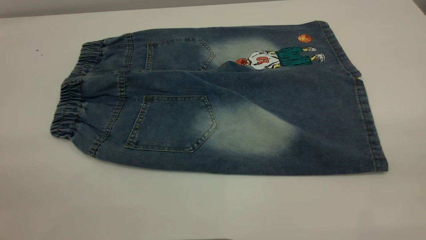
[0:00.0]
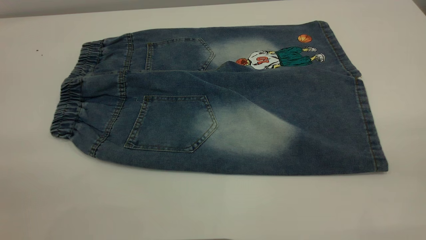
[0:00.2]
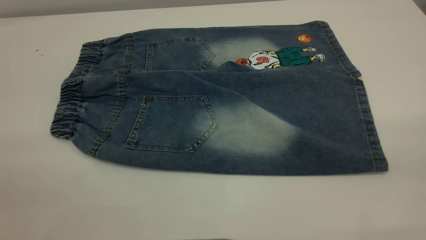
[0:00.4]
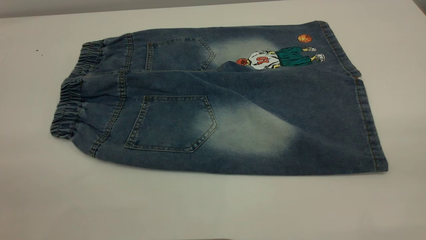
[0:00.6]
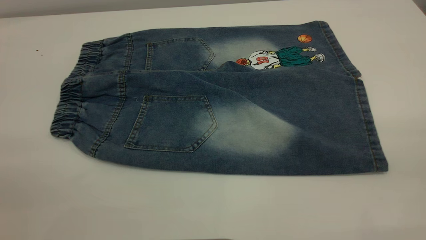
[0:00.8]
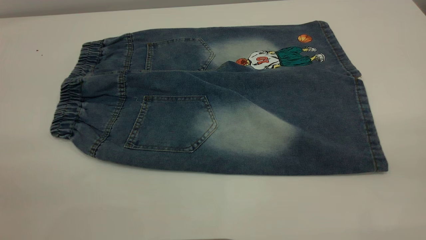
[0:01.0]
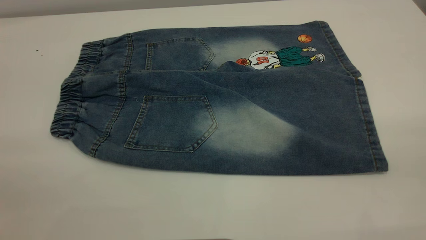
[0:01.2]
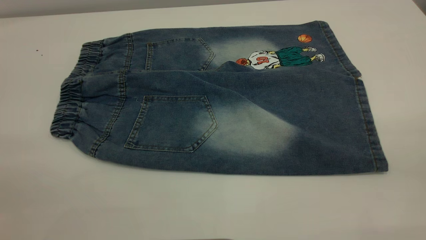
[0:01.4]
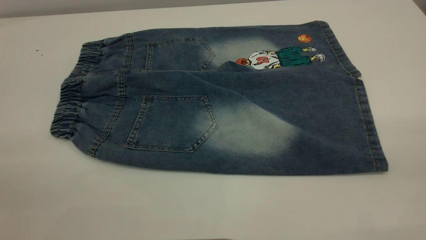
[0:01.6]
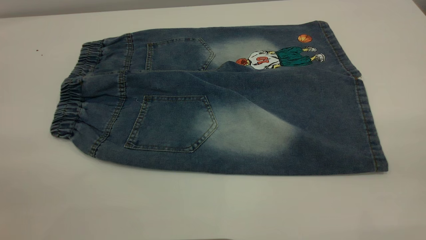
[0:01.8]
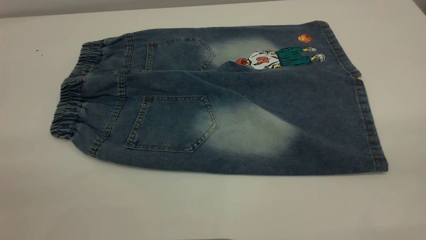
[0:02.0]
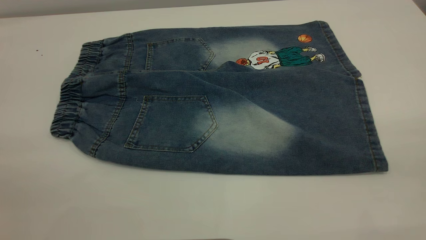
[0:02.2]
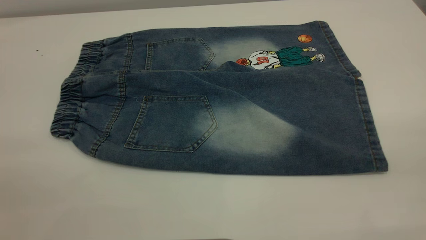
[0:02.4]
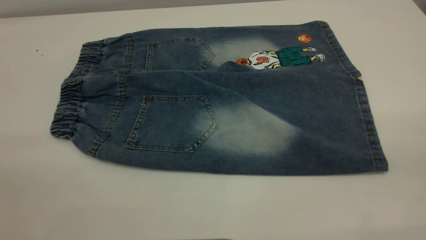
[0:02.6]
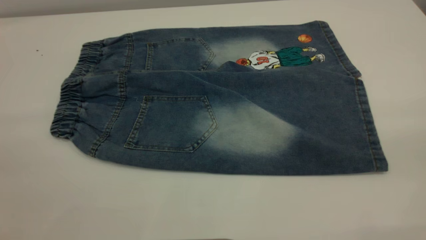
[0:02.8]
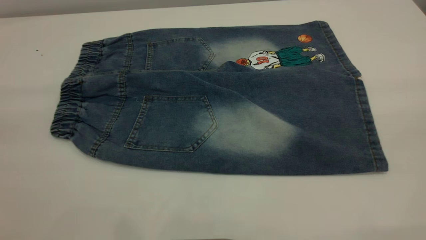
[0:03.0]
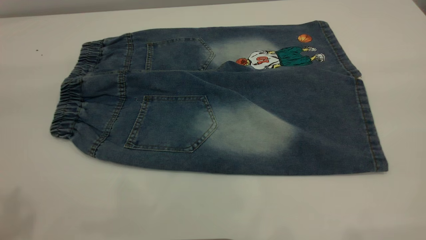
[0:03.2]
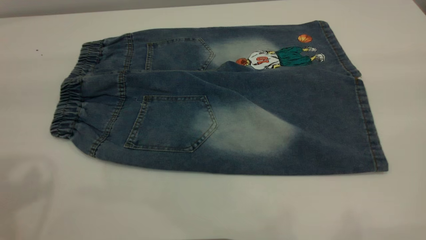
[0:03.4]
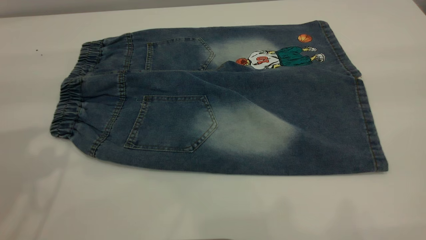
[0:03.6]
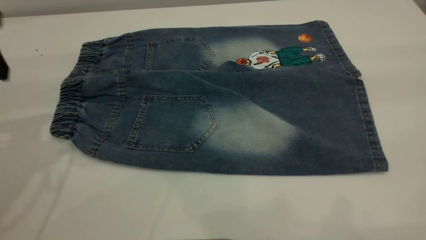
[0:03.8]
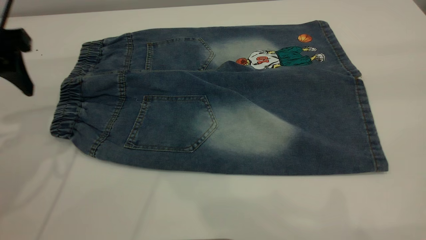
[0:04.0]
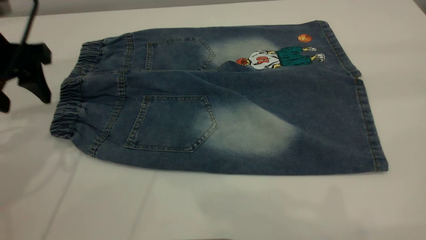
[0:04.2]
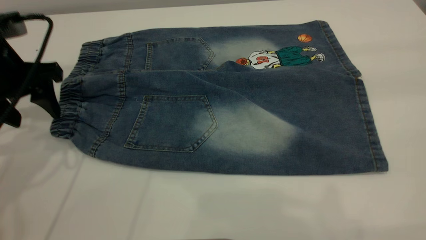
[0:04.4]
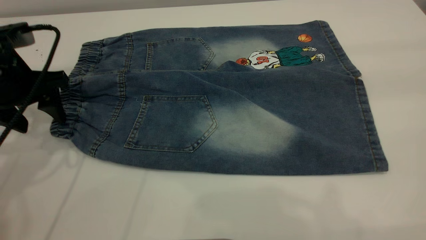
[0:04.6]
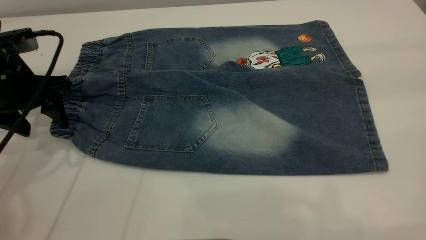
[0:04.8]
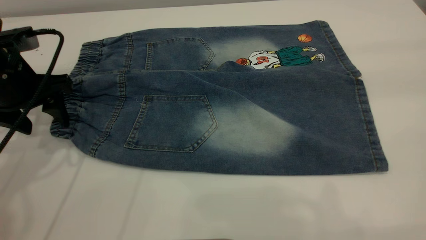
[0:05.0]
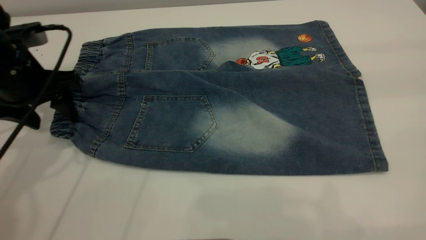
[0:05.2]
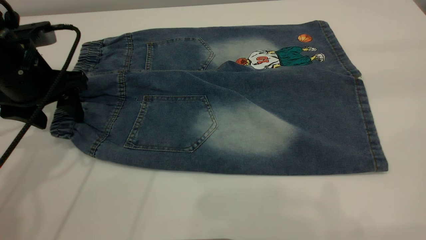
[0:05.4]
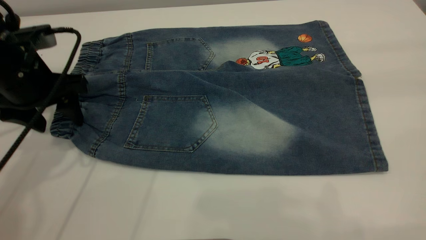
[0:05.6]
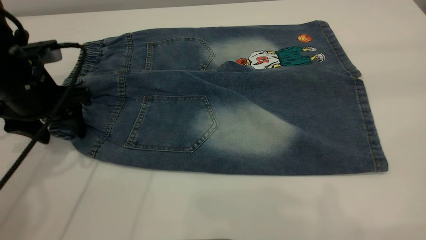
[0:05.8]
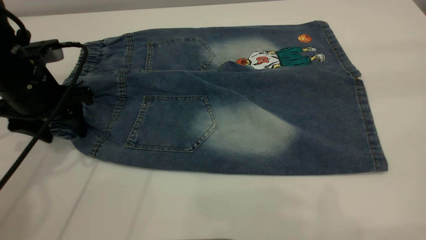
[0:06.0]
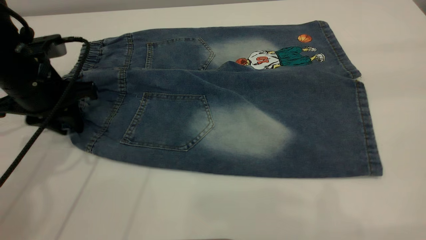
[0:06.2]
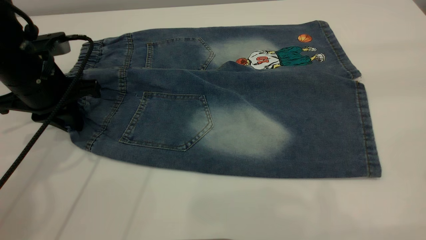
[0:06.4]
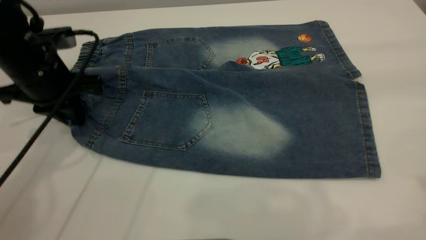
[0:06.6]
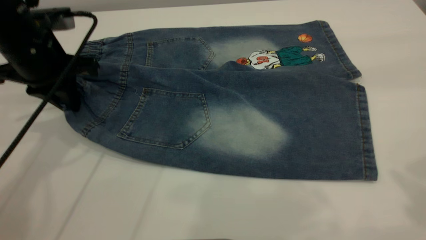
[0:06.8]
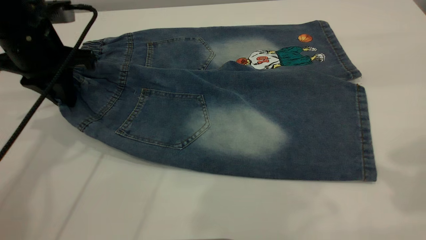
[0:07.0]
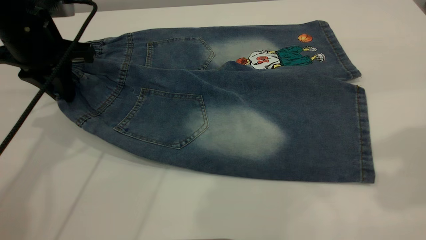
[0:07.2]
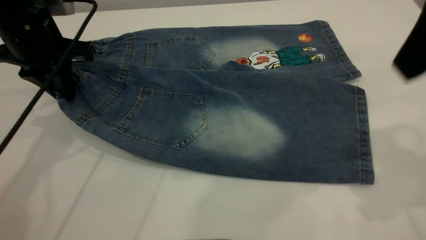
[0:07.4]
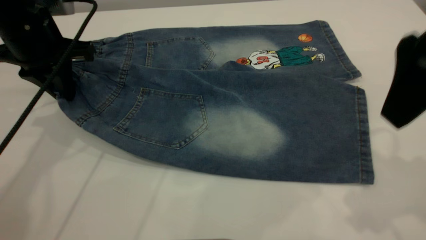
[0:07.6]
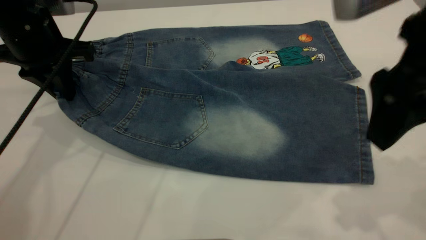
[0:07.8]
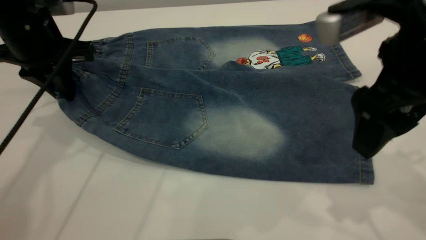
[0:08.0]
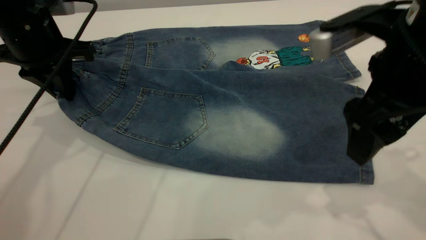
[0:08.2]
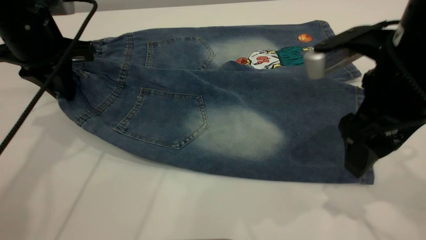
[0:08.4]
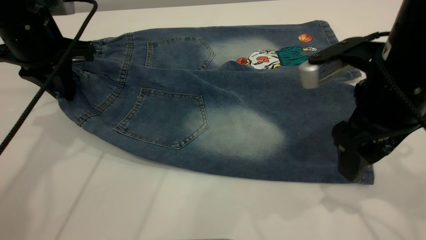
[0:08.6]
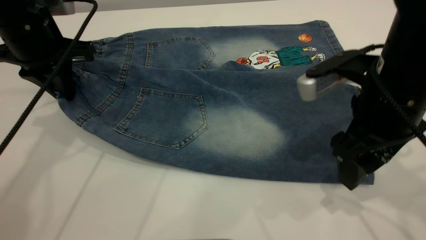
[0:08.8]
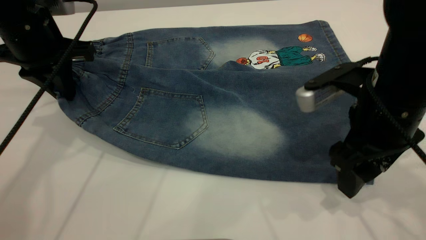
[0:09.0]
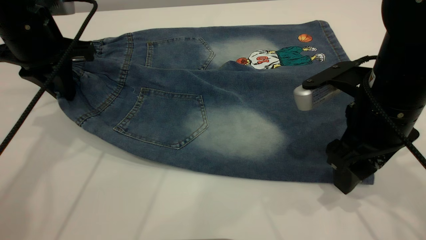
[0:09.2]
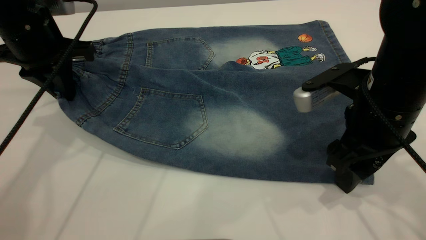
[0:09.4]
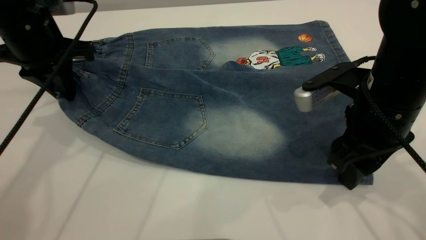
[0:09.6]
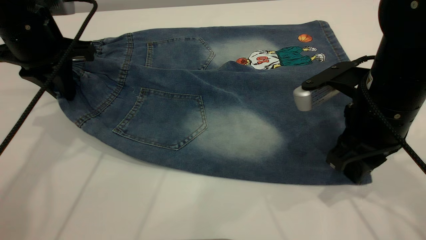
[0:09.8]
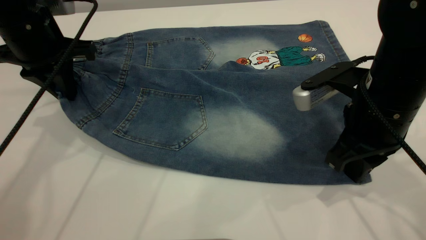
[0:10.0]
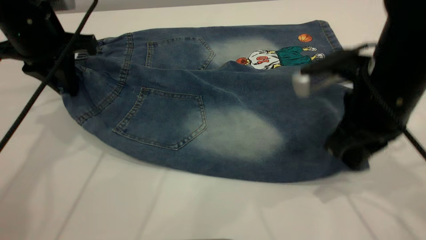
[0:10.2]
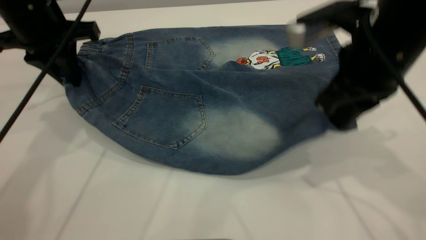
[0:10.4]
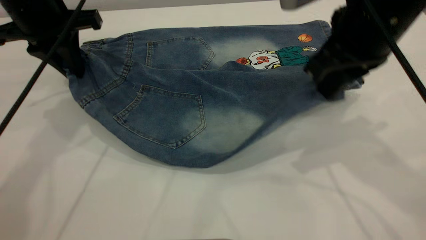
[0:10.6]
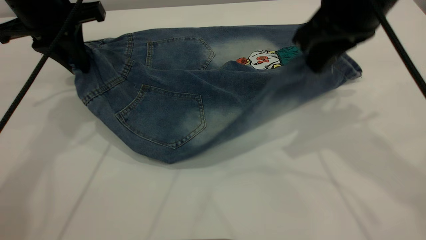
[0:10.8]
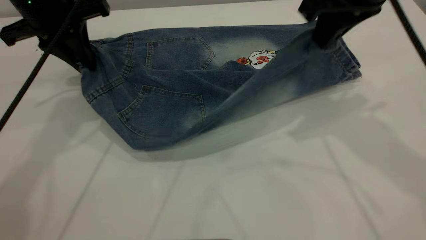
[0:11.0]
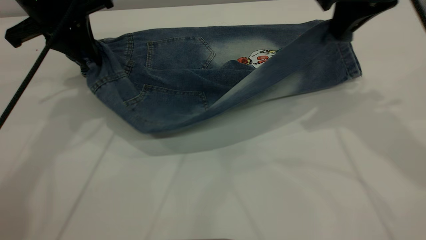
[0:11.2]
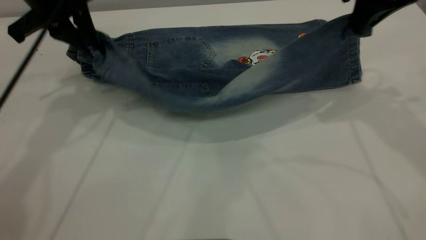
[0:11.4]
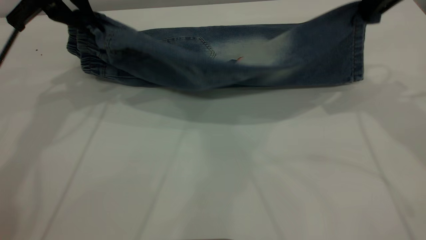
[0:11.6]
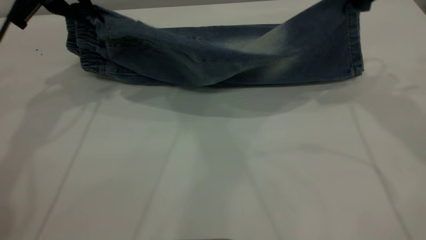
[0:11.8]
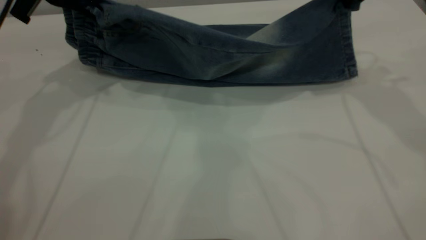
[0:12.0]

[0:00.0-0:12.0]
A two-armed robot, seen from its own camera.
0:00.0 to 0:01.6: The two grippers keep their place.
0:03.0 to 0:04.4: The left gripper shifts about 35 cm forward and downward.
0:04.4 to 0:06.0: The grippers stay close to where they were, moving slightly.
0:06.0 to 0:07.6: The right gripper is displaced downward, to the left and forward by some 15 cm, while the left gripper heads upward, covering about 5 cm, and closes its fingers.
0:07.6 to 0:09.0: The right gripper moves downward, approximately 15 cm.
0:09.0 to 0:10.4: The right gripper shifts about 5 cm upward, and closes.
0:10.4 to 0:12.0: The right gripper travels forward, to the right and upward by approximately 15 cm, while the left gripper changes place by roughly 5 cm.

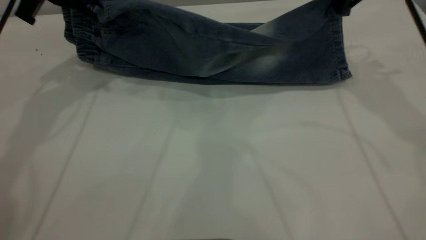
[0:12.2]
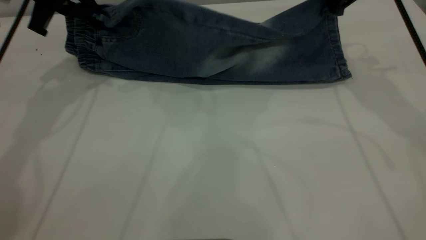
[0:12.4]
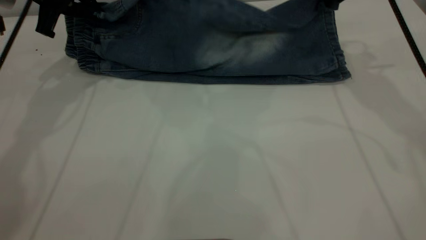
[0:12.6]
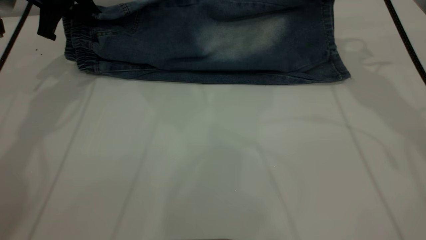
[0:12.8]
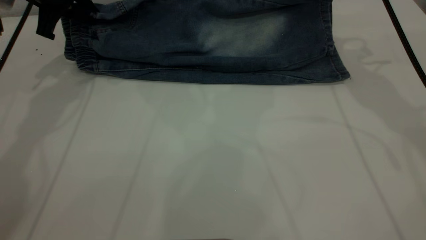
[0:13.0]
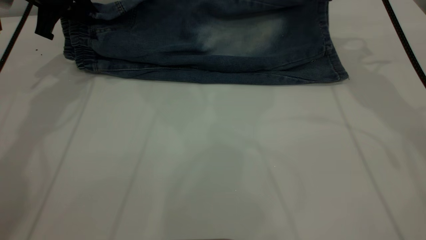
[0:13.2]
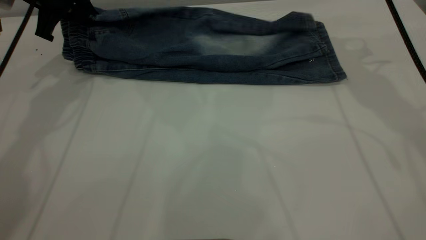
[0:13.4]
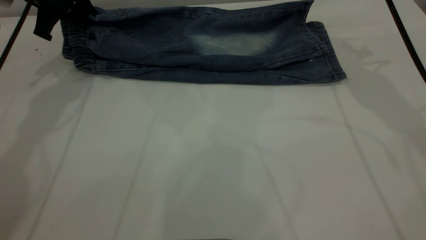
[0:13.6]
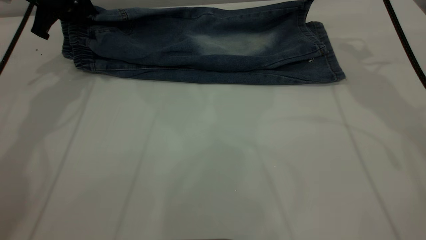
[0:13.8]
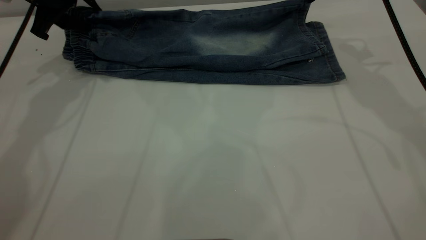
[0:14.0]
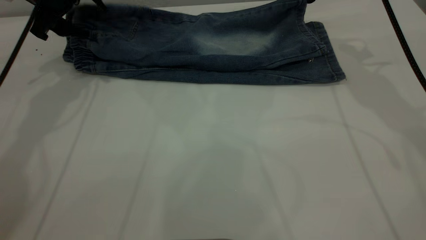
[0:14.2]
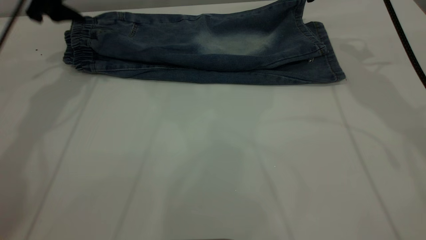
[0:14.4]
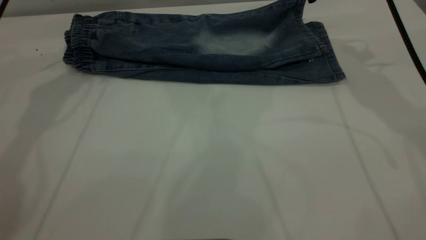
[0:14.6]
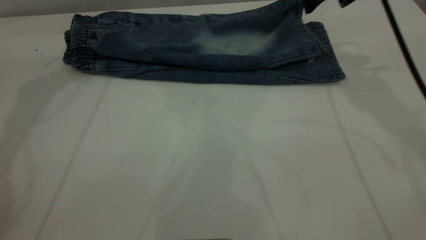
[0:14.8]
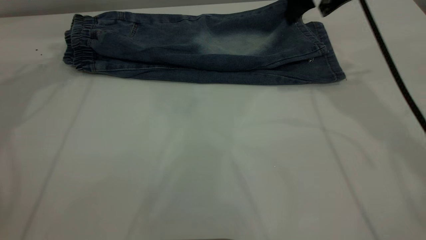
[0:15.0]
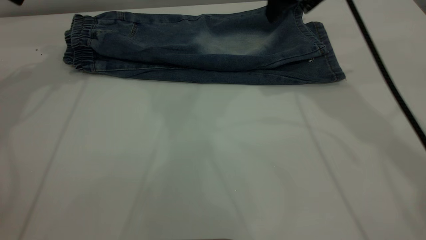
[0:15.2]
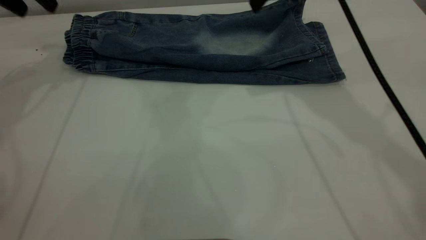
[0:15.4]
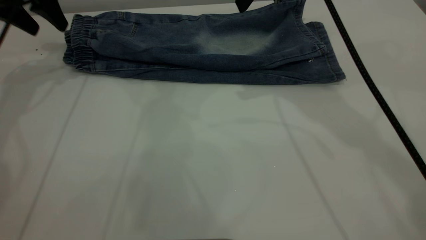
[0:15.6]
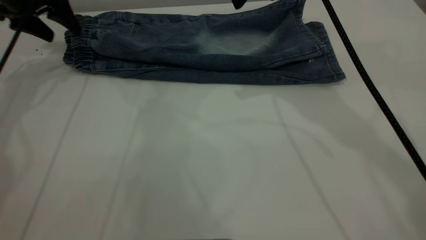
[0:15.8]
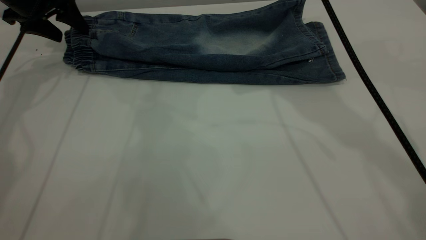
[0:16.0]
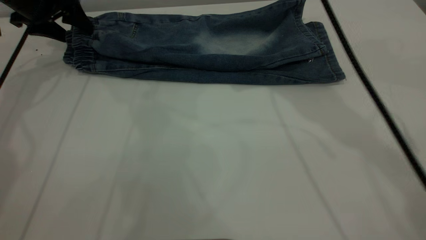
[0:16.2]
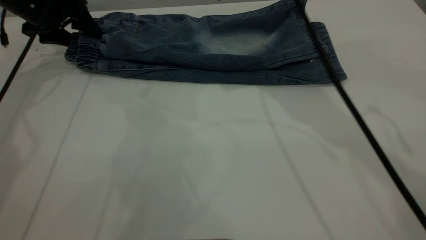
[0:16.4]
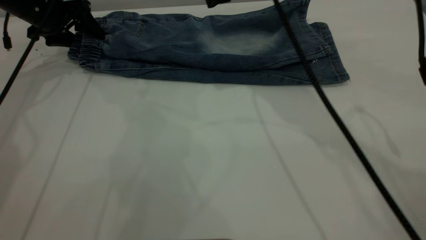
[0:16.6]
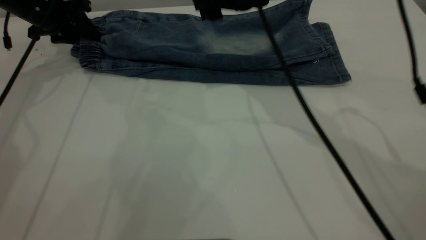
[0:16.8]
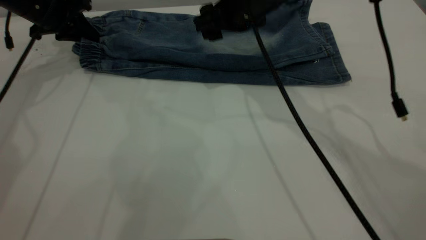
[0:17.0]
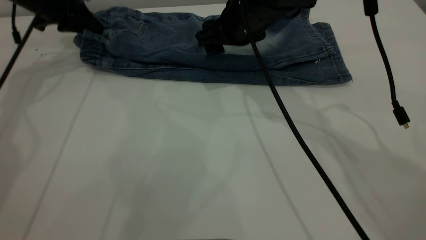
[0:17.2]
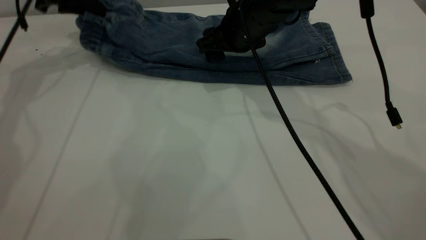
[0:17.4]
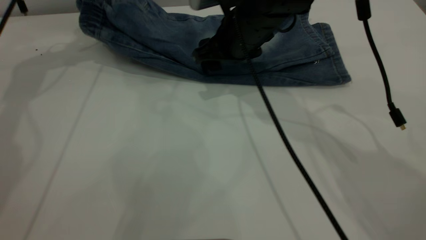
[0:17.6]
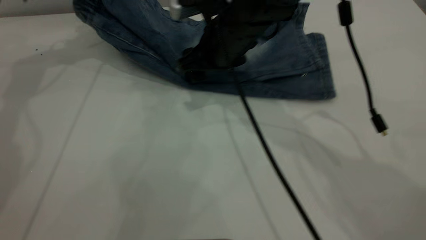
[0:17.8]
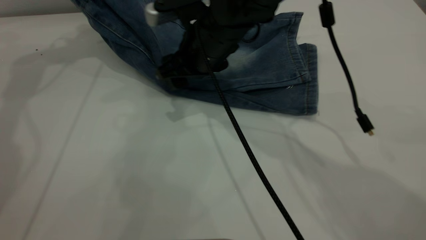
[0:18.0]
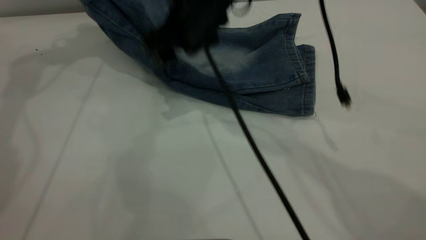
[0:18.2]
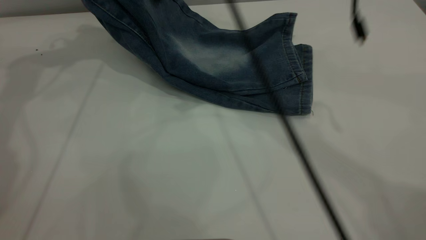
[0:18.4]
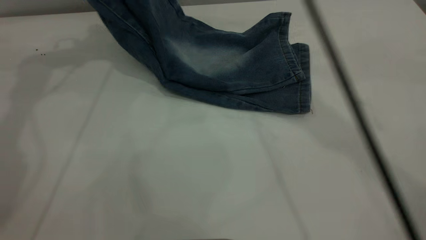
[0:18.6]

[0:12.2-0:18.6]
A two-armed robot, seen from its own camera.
Step, 0:12.2 to 0:14.4: Fold the bottom of the pants upward.
0:12.2 to 0:13.8: The left gripper shifts by some 5 cm, while the right gripper opens up.
0:13.8 to 0:15.4: The right gripper goes approximately 10 cm to the left, while the left gripper moves to the left and upward, some 10 cm, and opens up.
0:15.4 to 0:17.0: The right gripper shifts about 10 cm downward and to the left. Meanwhile the left gripper travels downward by roughly 10 cm, and closes its fingers.
0:17.0 to 0:18.6: The grippers both shift upward by approximately 20 cm.
